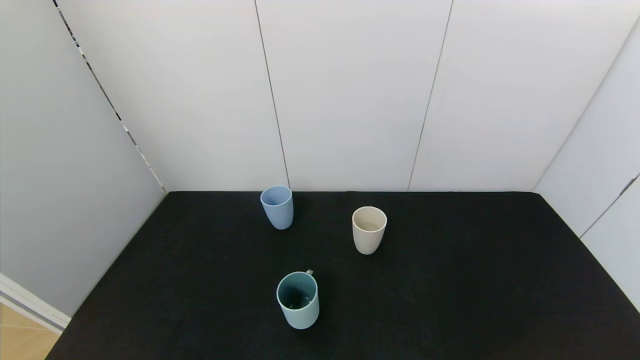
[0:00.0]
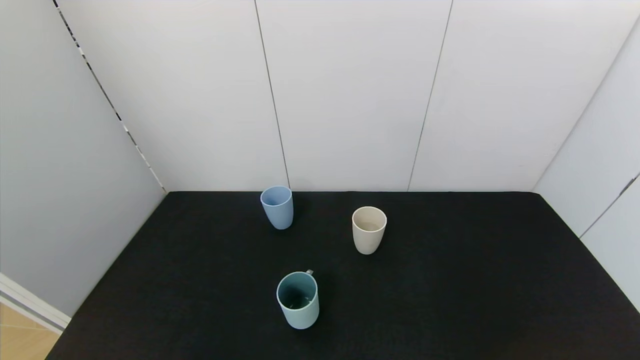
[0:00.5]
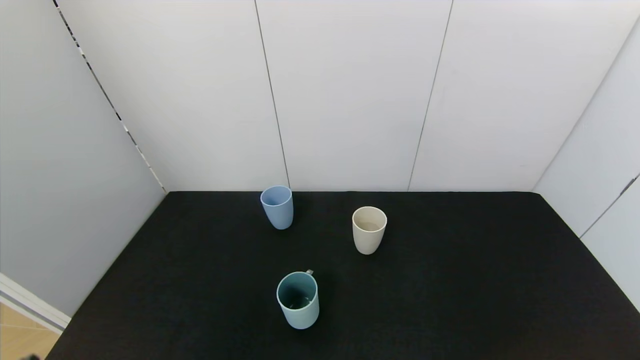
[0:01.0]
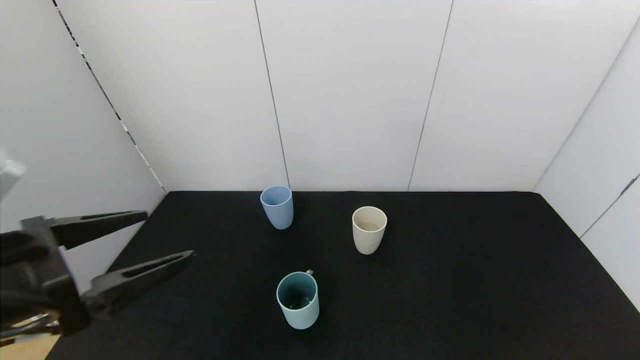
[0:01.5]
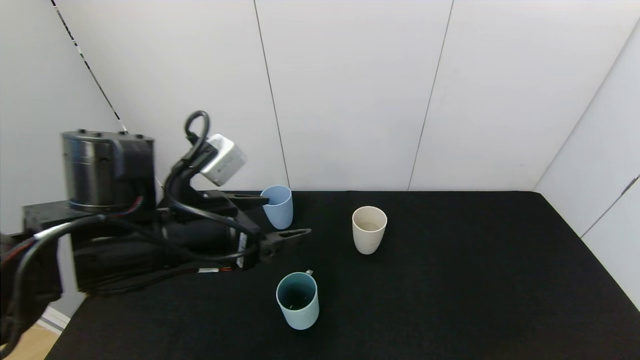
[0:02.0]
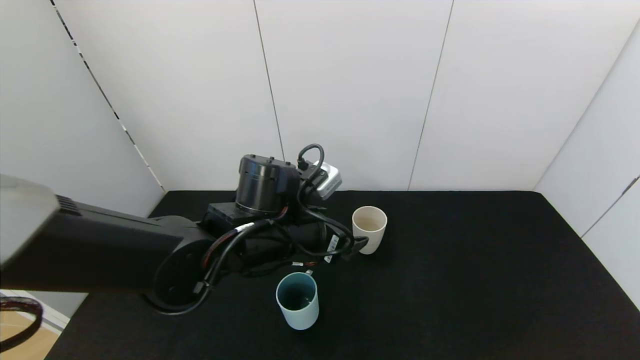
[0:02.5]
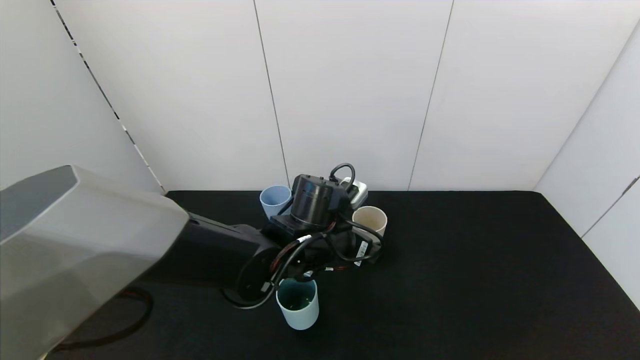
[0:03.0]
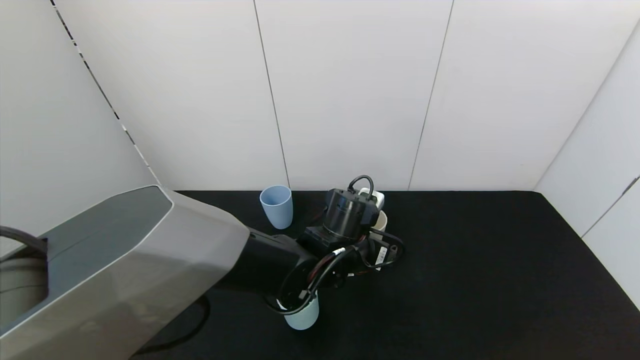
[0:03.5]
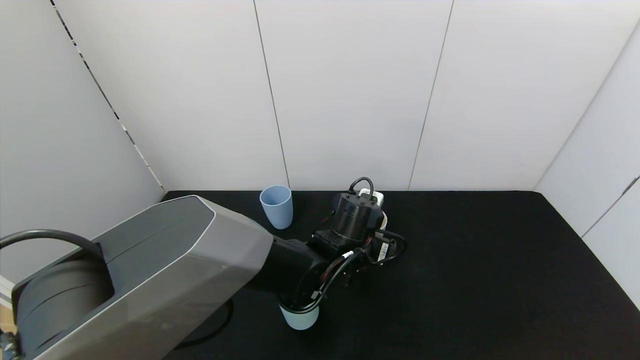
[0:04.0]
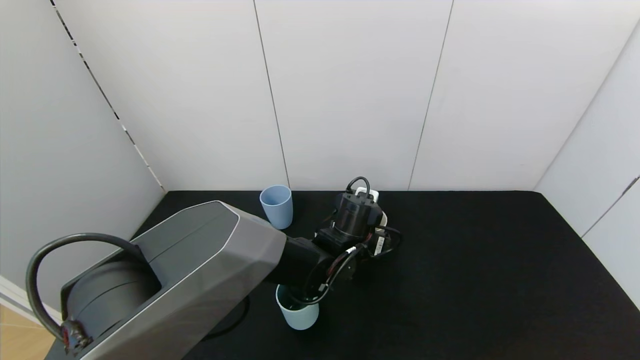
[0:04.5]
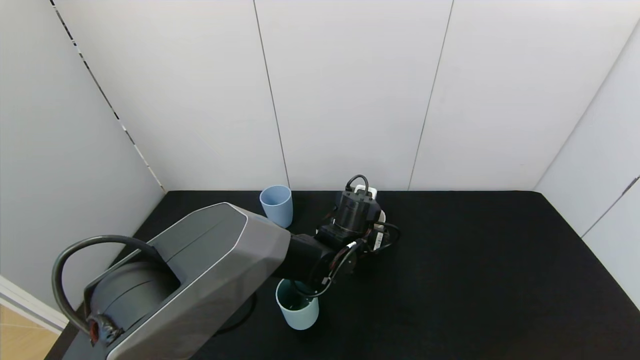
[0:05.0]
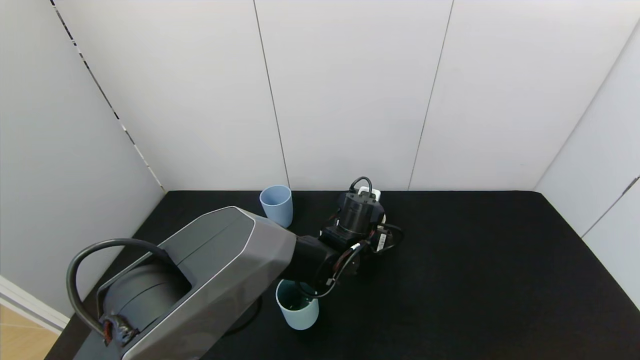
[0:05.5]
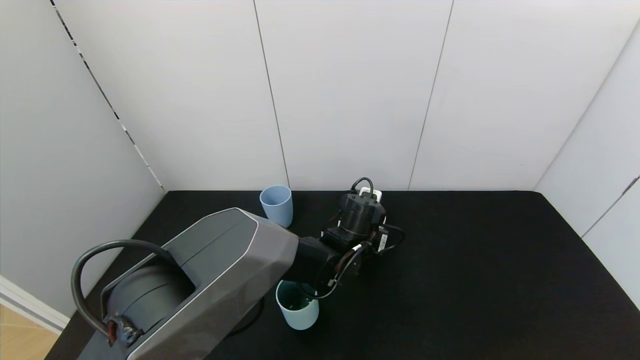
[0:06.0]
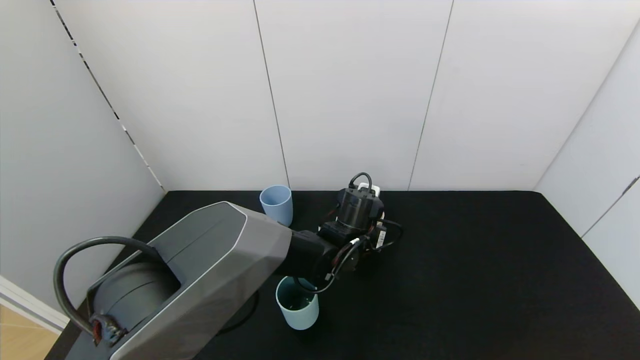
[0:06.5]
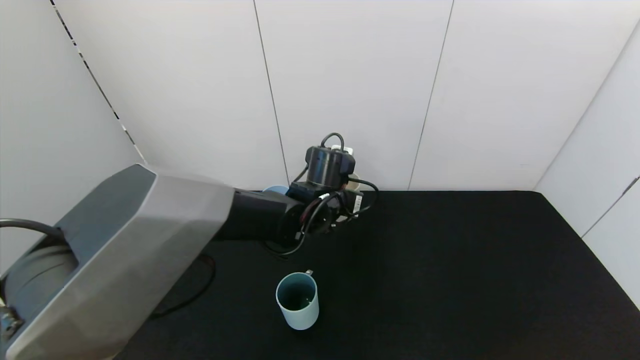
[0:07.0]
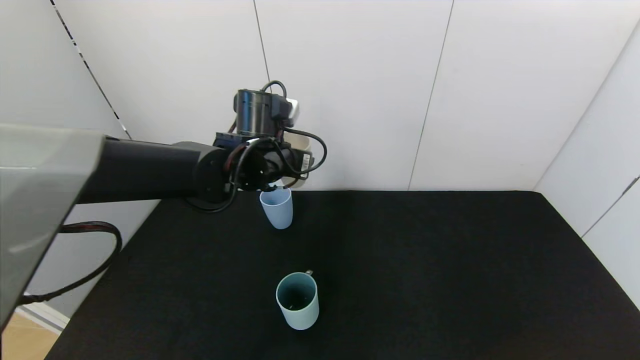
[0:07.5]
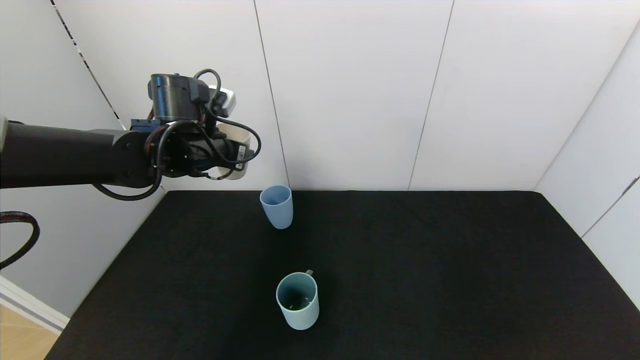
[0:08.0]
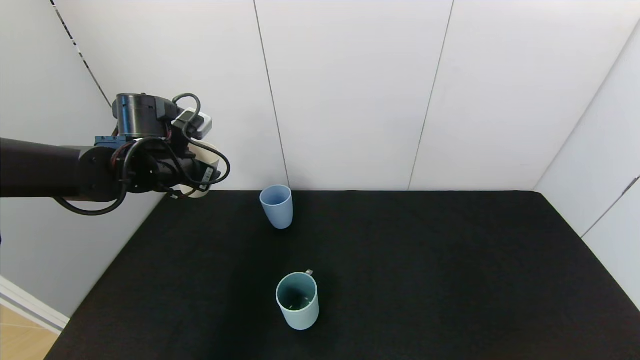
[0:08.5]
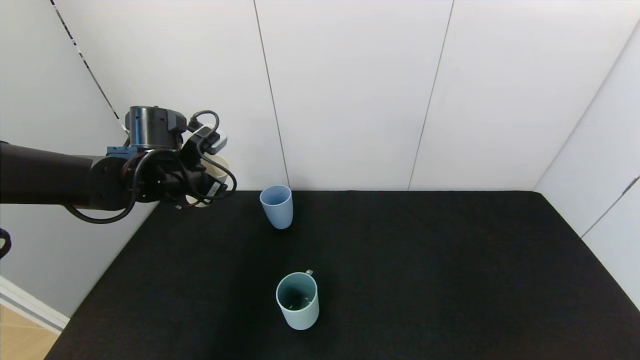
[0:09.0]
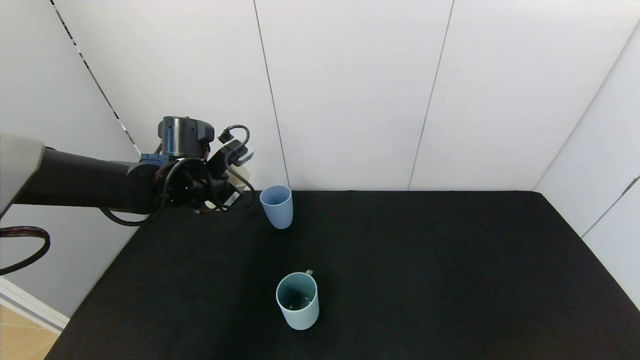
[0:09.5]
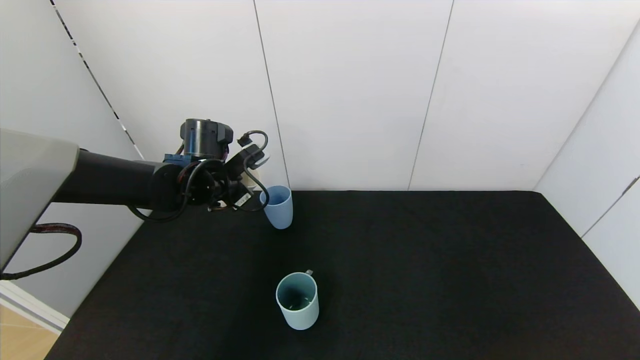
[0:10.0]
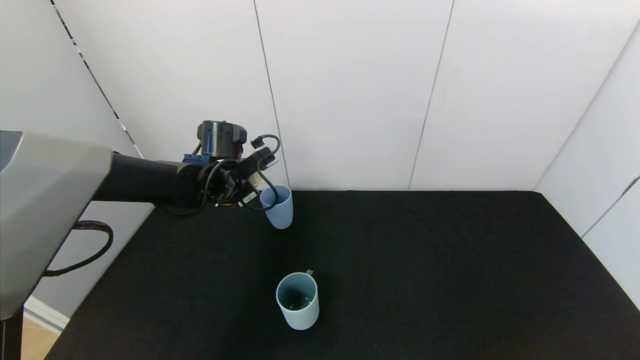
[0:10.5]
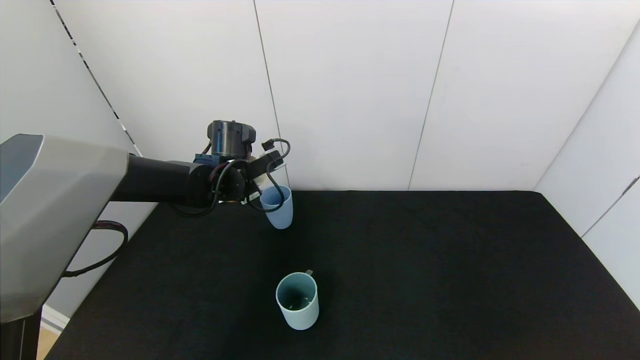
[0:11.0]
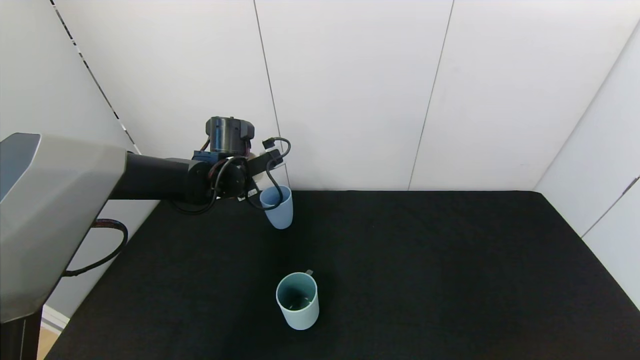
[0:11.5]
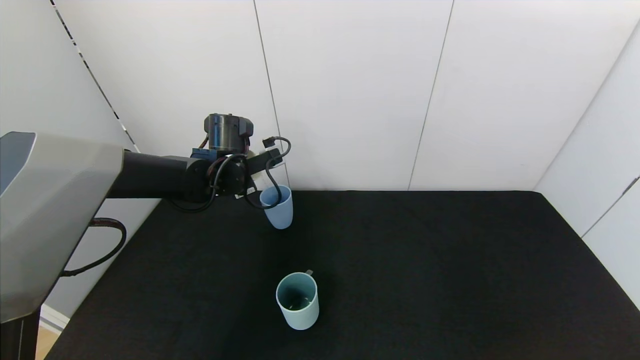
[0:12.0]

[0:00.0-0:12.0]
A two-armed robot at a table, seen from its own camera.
Task of the whole recording: use the gripper to pour the water into the other two cups on black table.
Step, 0:00.0 to 0:06.0: Grasp the white cup with the left gripper.
0:00.0 to 0:02.0: The left gripper shifts some 30 cm forward and to the right.
0:02.0 to 0:04.0: The left gripper travels to the right, downward and forward by roughly 25 cm.
0:04.0 to 0:06.0: The left gripper shifts by roughly 5 cm, and closes up.
0:06.0 to 0:08.0: The left gripper is displaced to the left and upward by approximately 30 cm.
0:08.0 to 0:10.0: The left gripper shifts some 5 cm downward.

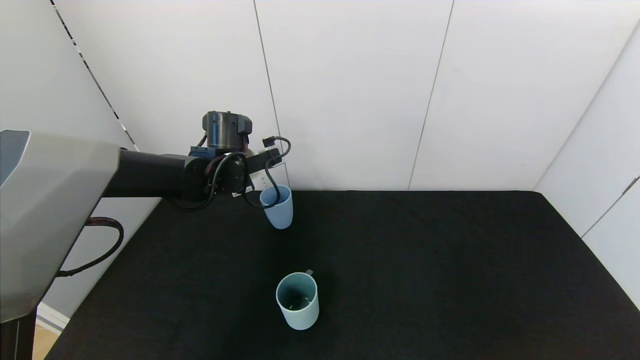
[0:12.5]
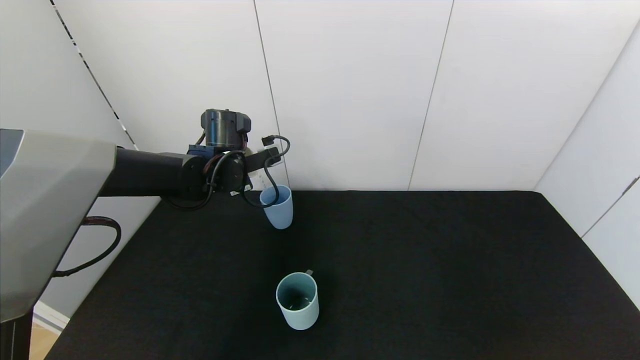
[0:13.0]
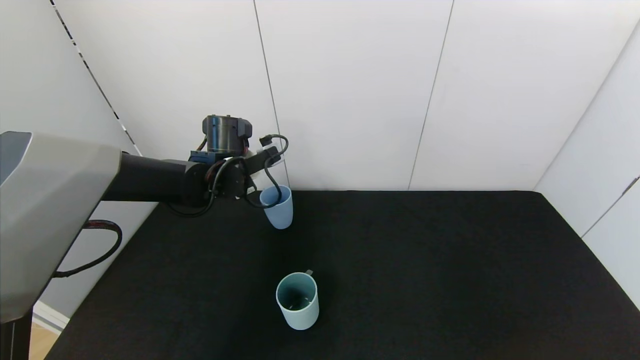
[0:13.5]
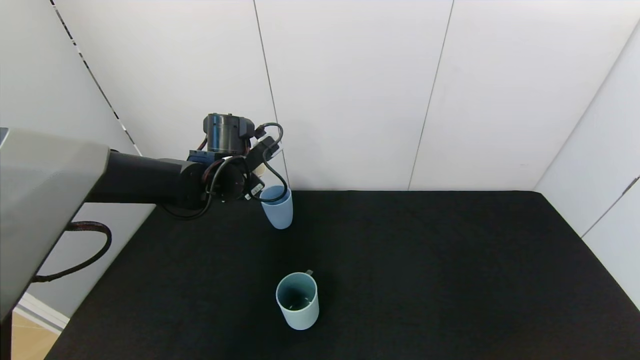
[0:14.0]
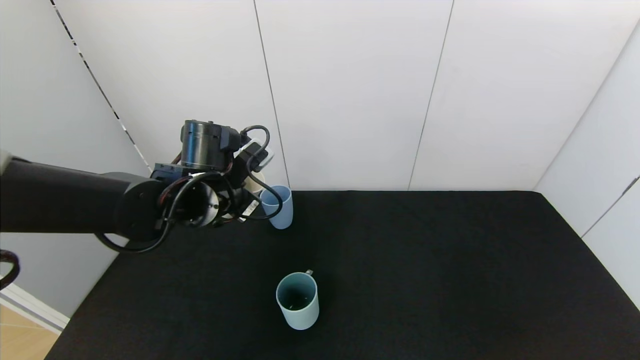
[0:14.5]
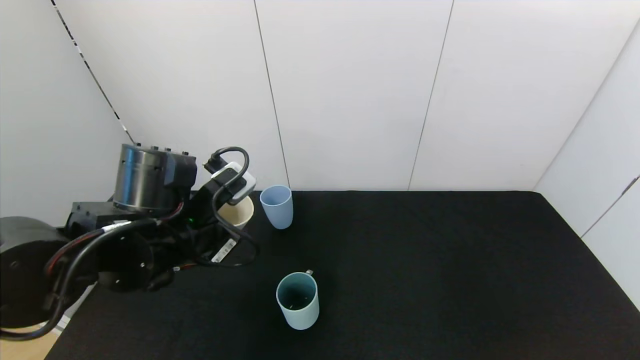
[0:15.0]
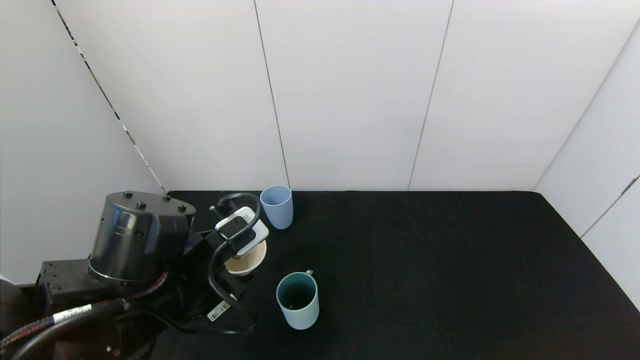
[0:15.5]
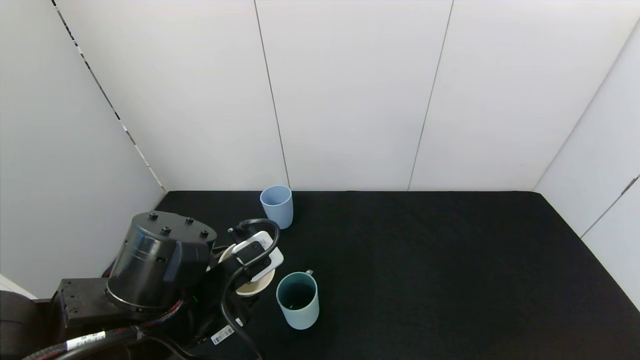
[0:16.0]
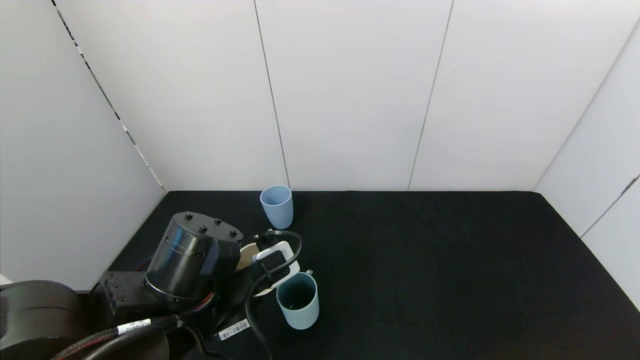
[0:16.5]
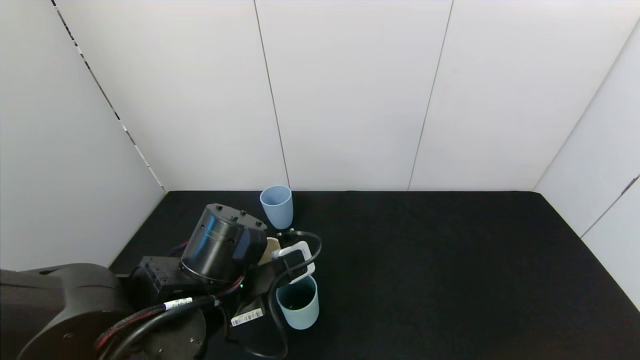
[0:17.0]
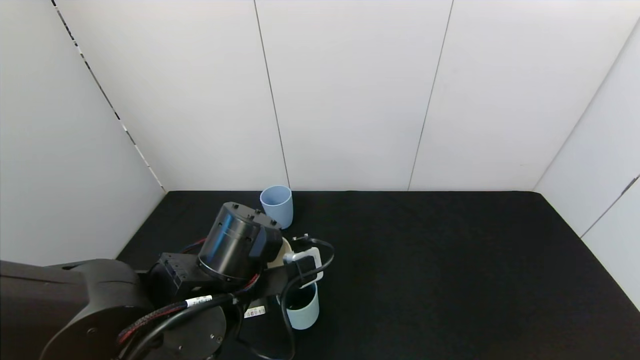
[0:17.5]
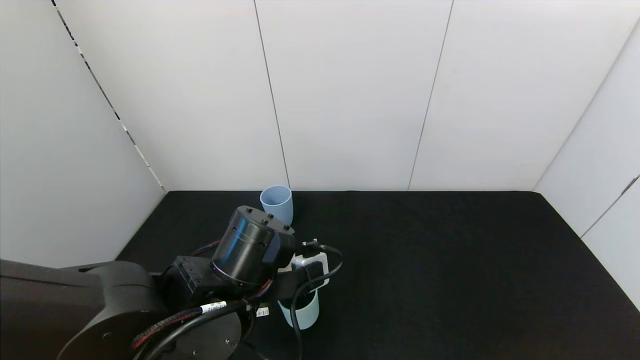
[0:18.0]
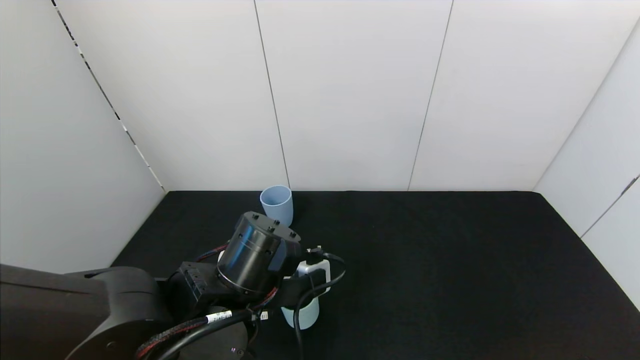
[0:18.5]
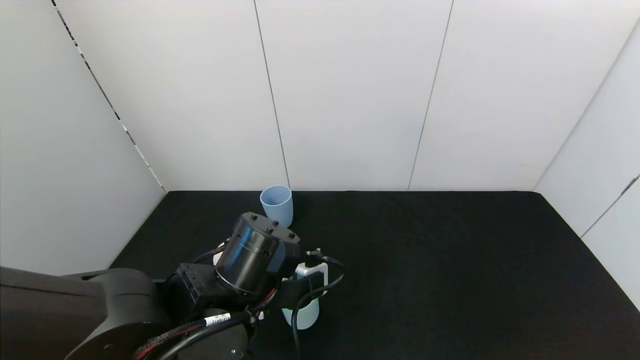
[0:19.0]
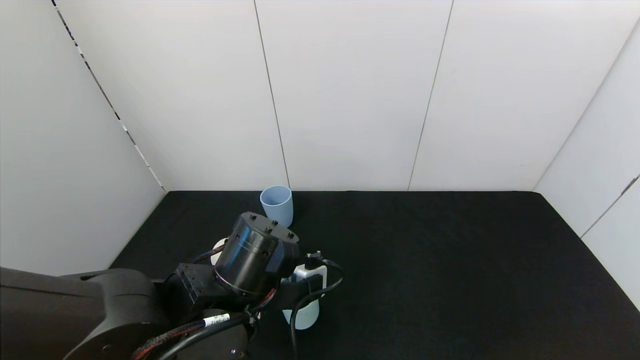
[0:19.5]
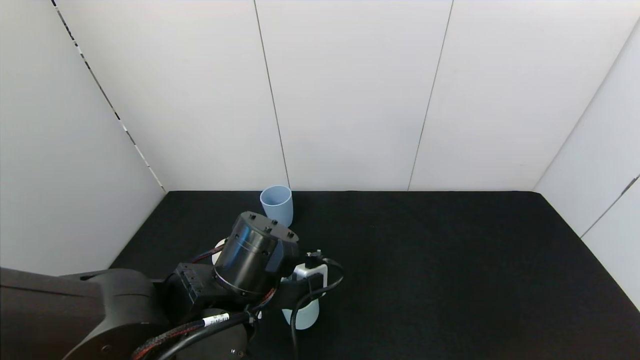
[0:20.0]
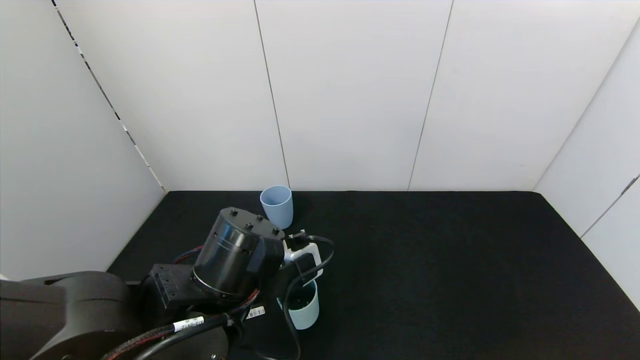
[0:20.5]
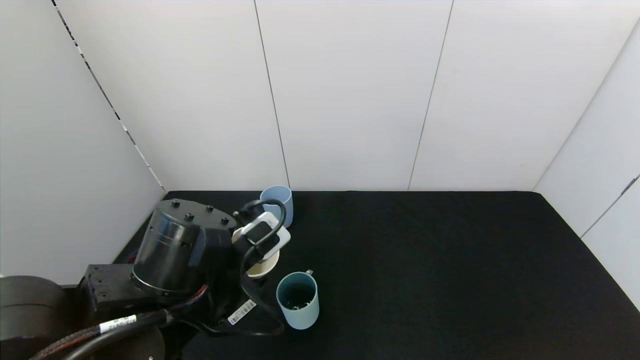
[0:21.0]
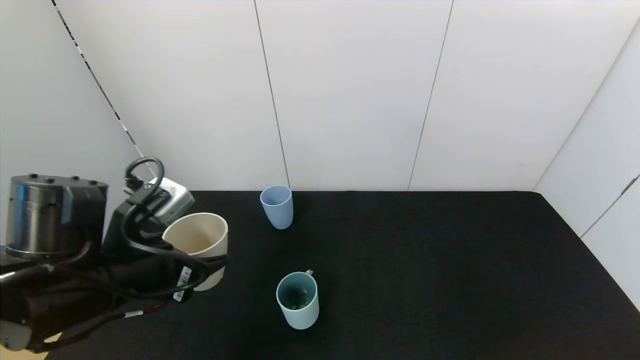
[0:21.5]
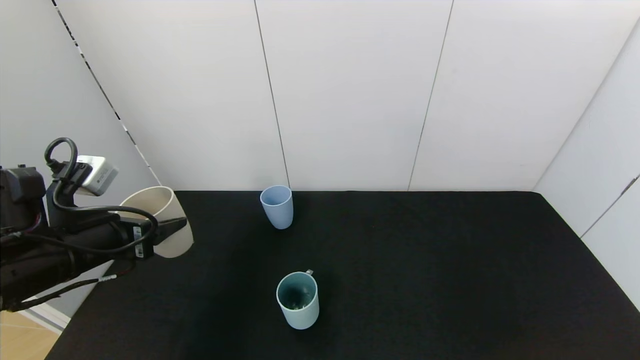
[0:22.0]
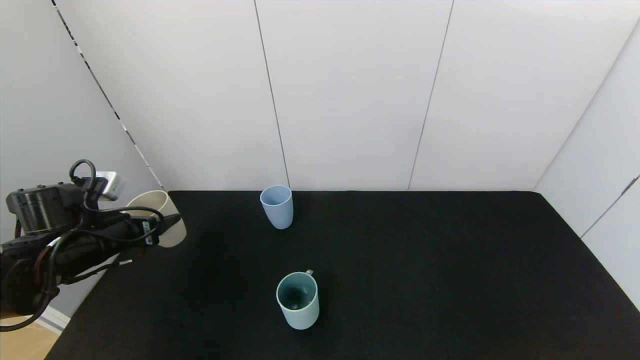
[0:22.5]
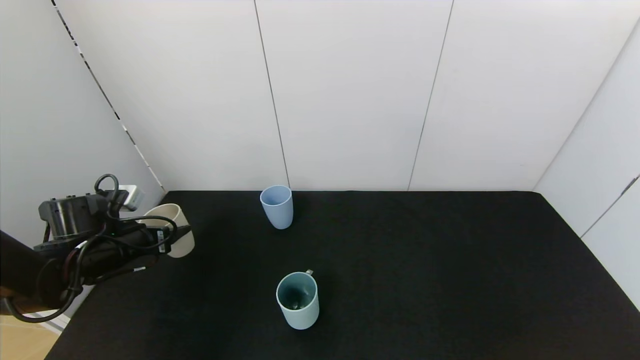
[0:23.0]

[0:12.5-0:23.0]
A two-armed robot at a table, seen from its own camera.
Task of the whole recording: use the gripper to pour the water into the other two cups on black table.
Step, 0:14.5 to 0:21.0: Pour water from white cup to green cup with the left gripper.
0:12.5 to 0:14.5: The left gripper moves backward, about 10 cm.
0:14.5 to 0:16.5: The left gripper is displaced backward by some 15 cm.
0:21.0 to 0:23.0: The left gripper heads to the left and forward, covering approximately 25 cm.
